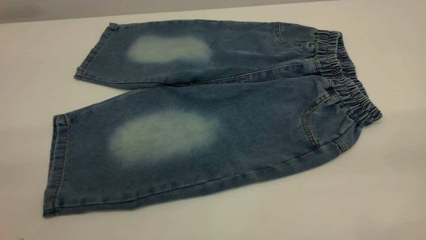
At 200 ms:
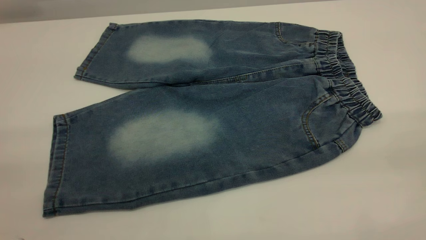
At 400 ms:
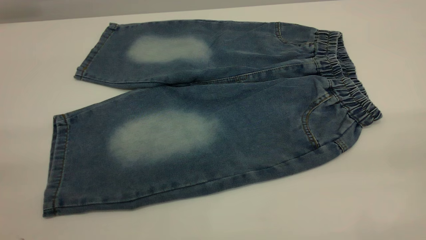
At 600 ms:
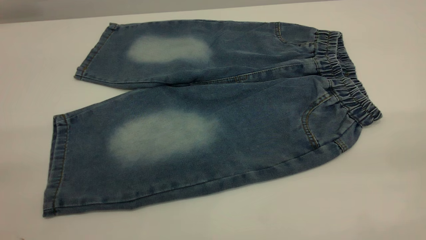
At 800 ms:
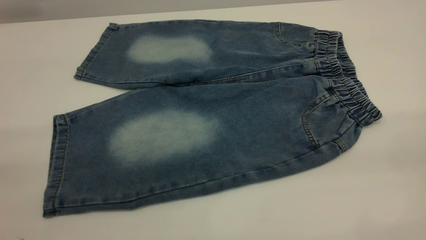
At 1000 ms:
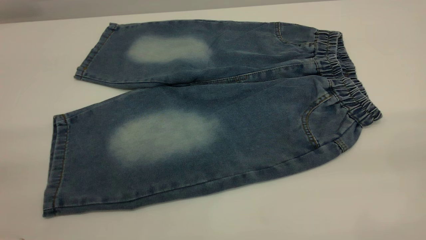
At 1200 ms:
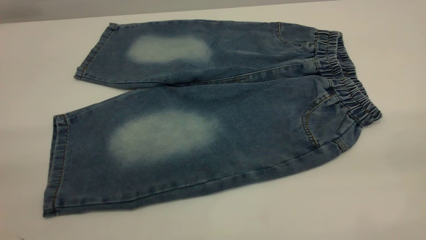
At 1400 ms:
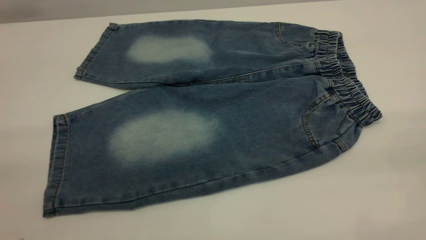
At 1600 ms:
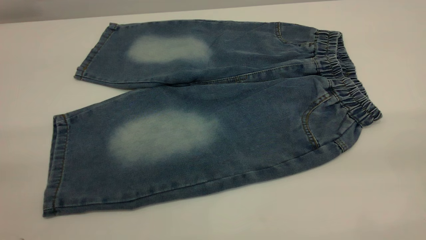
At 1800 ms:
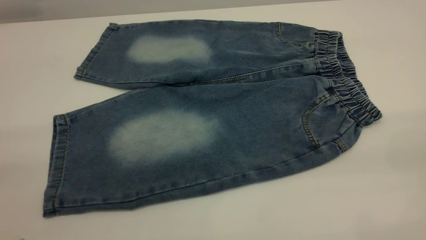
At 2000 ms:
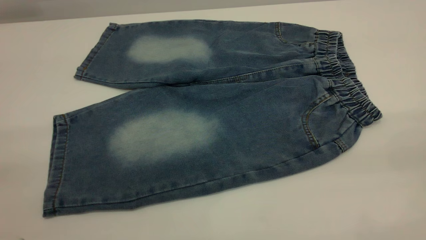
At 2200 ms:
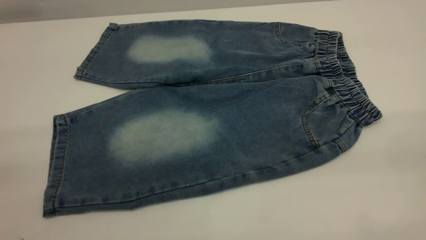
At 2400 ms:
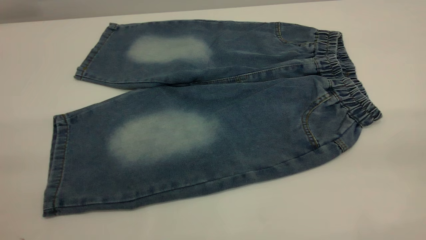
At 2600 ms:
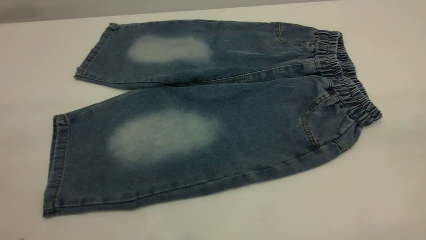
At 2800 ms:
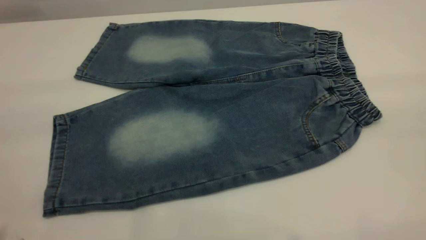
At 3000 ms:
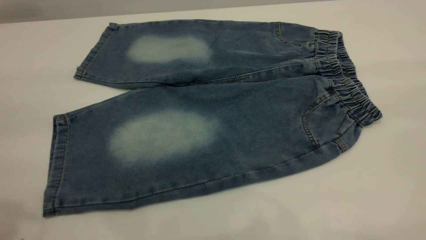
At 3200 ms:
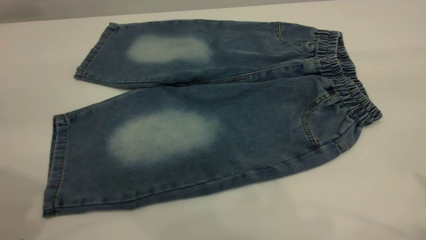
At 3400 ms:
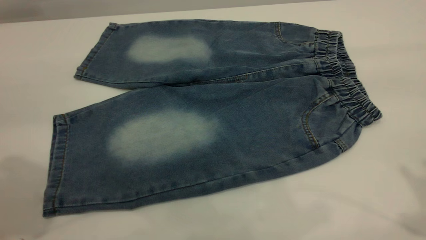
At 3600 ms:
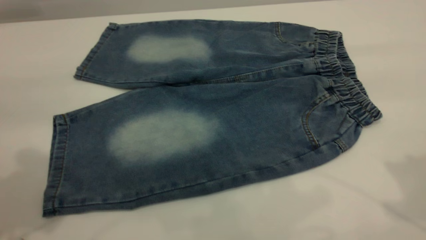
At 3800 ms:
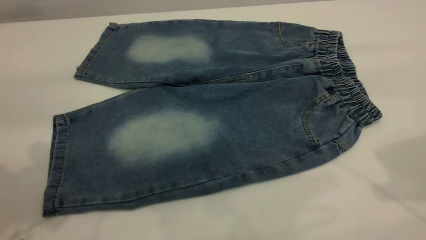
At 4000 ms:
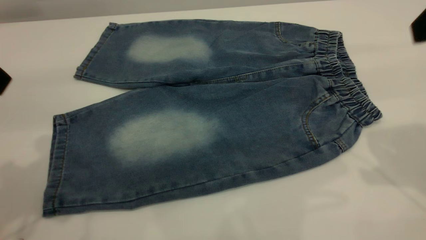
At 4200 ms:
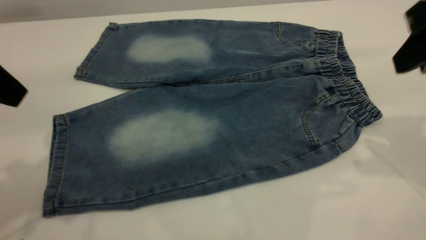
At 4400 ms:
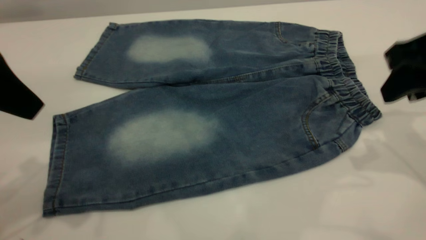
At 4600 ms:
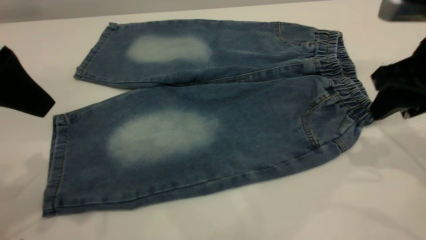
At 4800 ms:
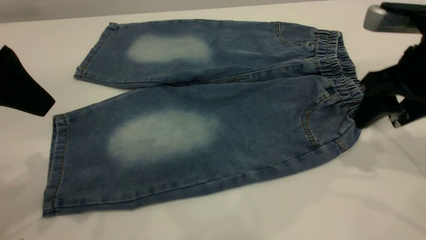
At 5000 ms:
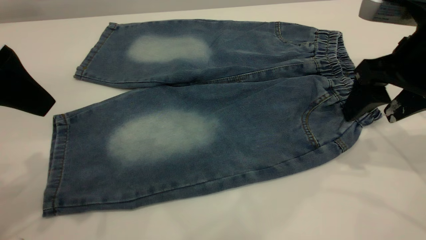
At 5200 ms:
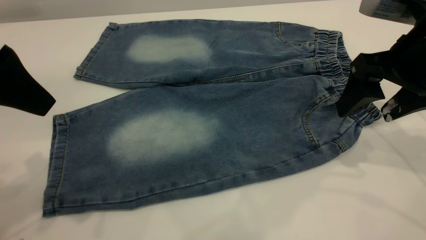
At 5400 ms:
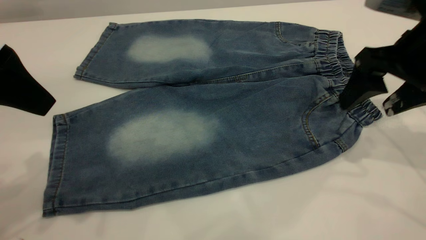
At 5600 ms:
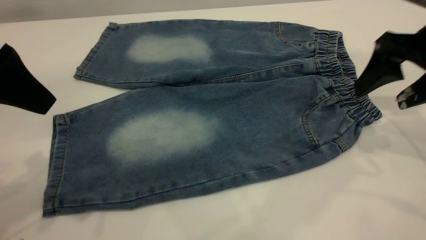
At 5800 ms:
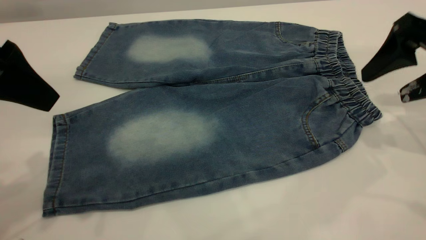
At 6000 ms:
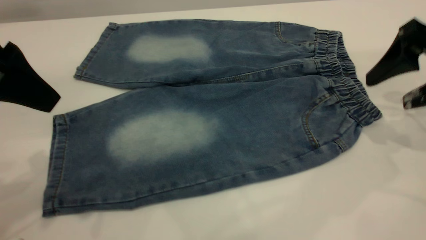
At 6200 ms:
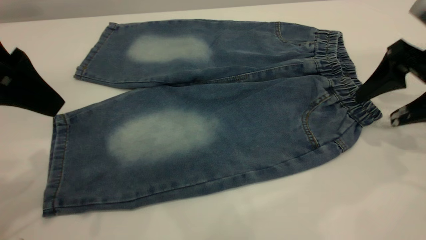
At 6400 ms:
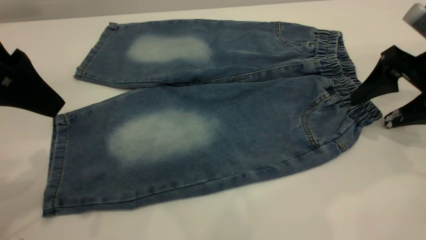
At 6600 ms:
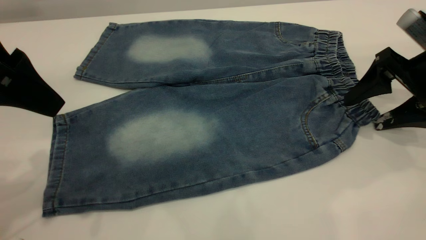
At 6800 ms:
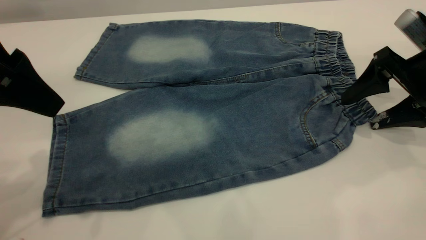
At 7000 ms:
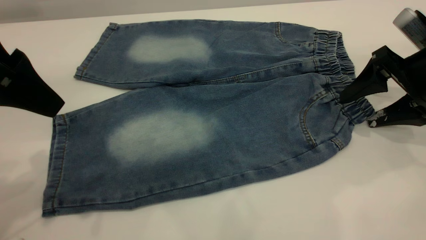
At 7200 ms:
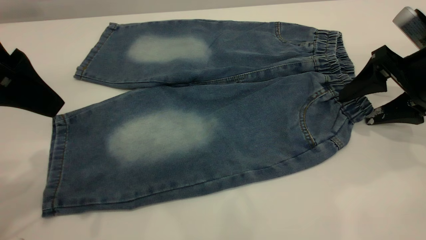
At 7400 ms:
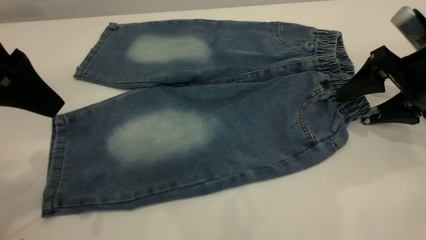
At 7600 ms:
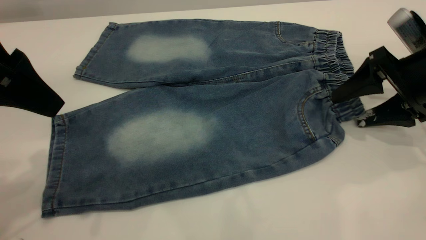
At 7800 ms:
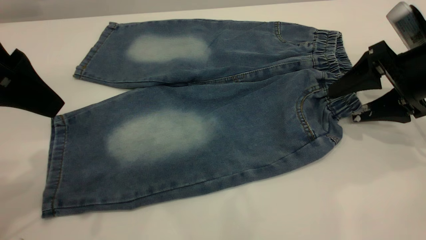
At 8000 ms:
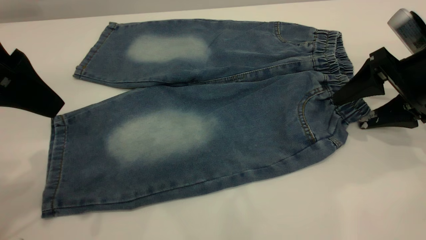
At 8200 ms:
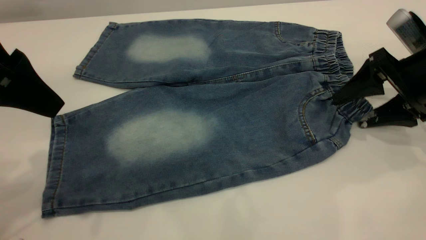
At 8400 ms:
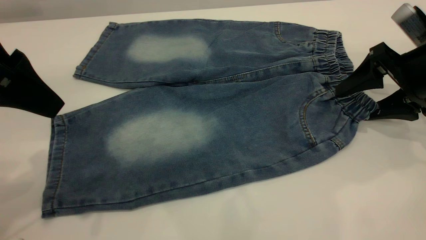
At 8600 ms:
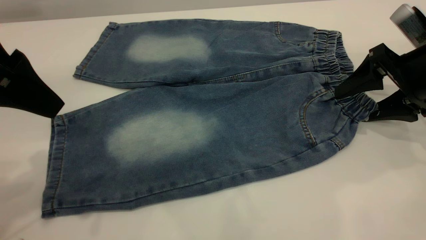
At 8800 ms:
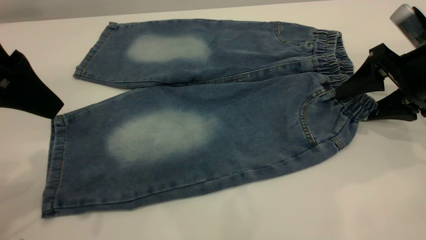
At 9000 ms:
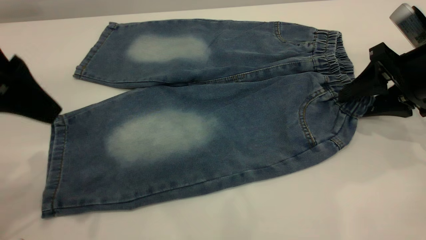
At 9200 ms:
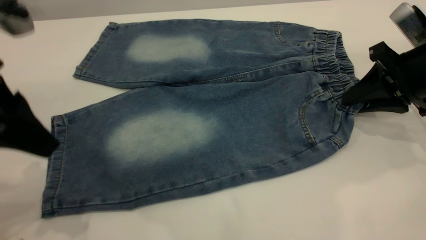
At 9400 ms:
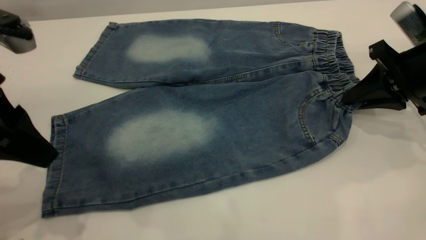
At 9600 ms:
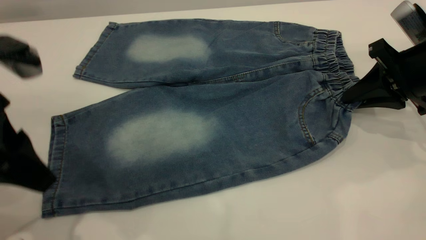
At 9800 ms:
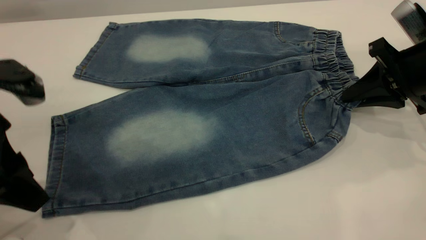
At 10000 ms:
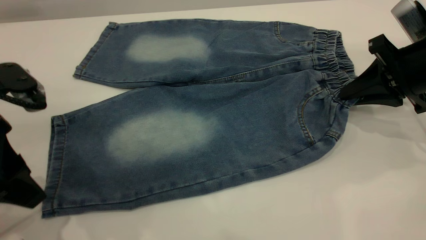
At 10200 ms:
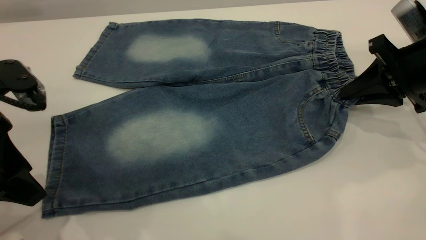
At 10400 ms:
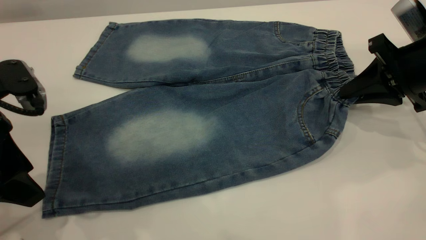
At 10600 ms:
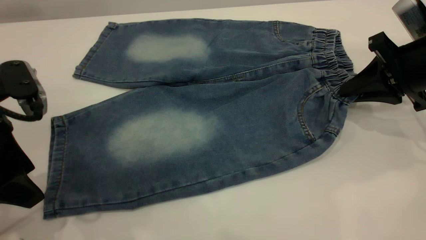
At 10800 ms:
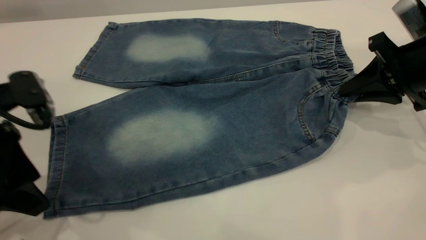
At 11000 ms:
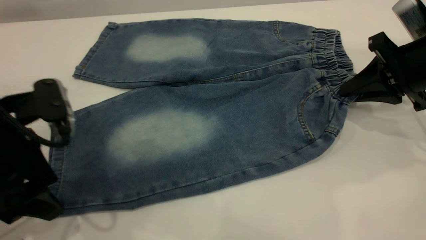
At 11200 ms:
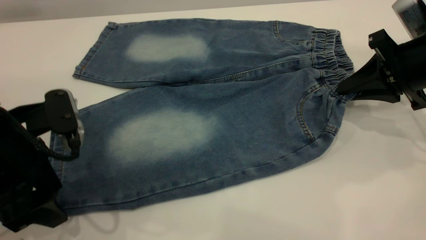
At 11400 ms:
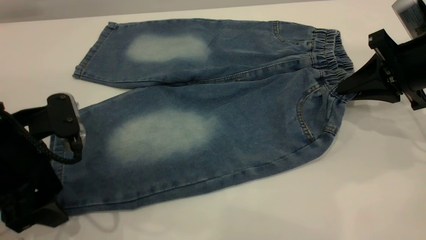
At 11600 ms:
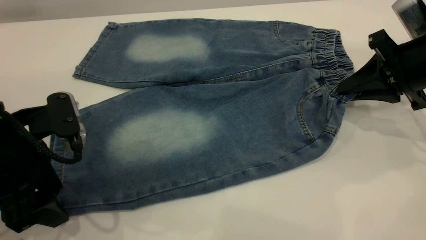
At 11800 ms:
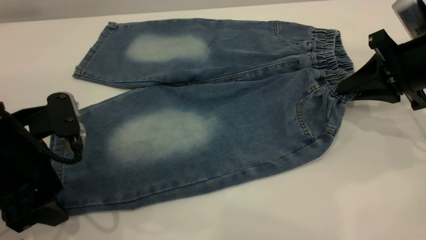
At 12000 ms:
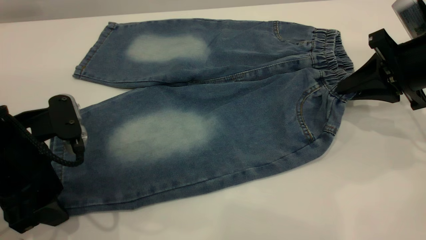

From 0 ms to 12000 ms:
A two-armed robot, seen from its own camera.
From 0 ms to 1600 ms: Both grippers stay put.
From 3000 ms to 4400 ms: The left gripper goes about 15 cm downward and forward. Meanwhile the right gripper shifts roughly 25 cm downward and forward.
From 4400 ms to 6000 ms: The right gripper moves some 5 cm, and opens up.
From 6000 ms to 7600 ms: The right gripper changes place by some 5 cm.
From 7600 ms to 9000 ms: The right gripper closes its fingers.
From 9000 ms to 10400 ms: The right gripper closes up; the left gripper goes about 5 cm downward.
From 10400 ms to 12000 ms: The left gripper ends up approximately 5 cm from where it was.

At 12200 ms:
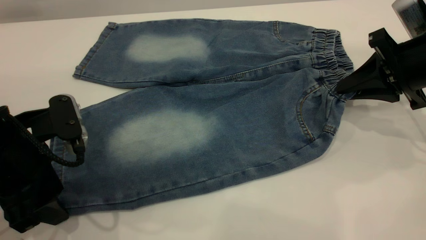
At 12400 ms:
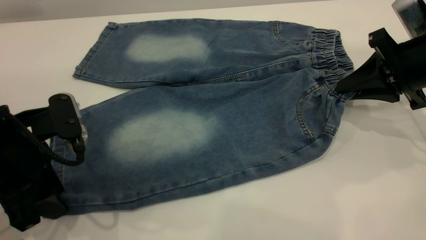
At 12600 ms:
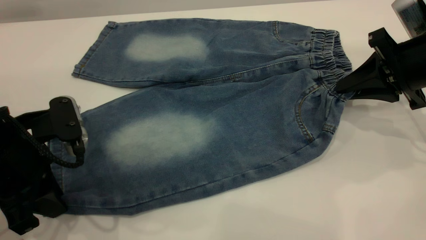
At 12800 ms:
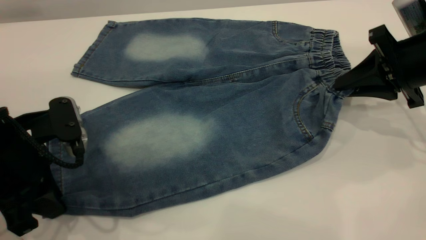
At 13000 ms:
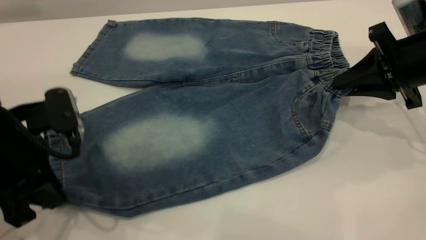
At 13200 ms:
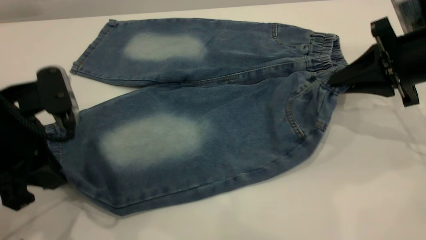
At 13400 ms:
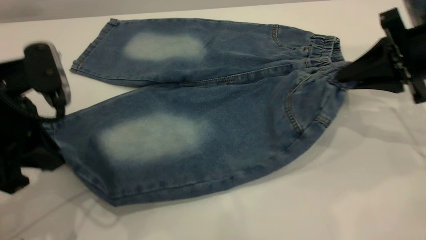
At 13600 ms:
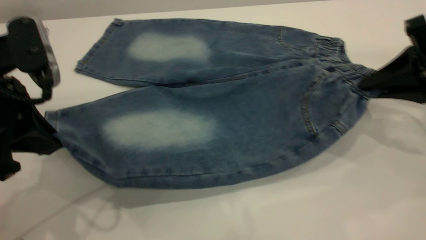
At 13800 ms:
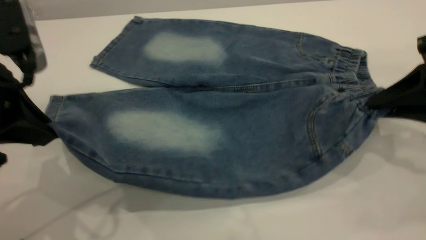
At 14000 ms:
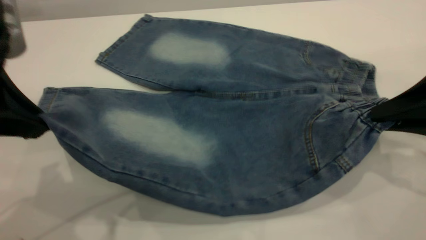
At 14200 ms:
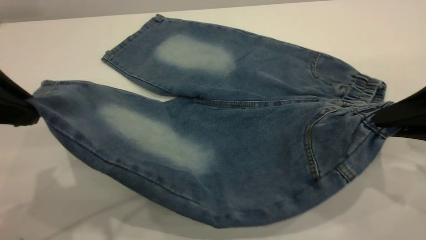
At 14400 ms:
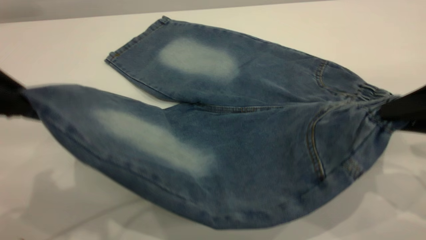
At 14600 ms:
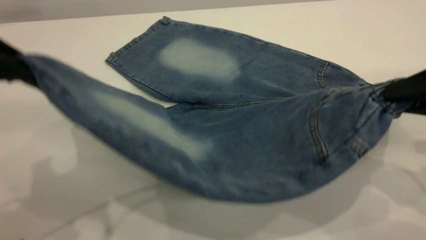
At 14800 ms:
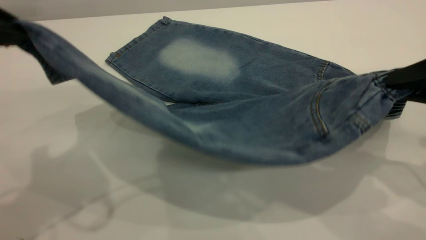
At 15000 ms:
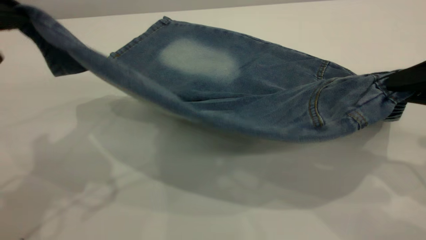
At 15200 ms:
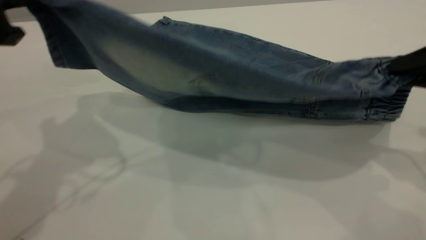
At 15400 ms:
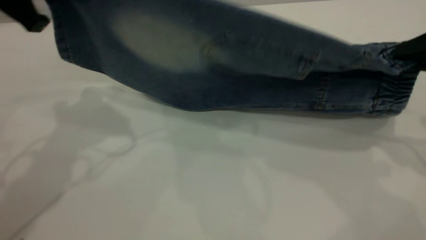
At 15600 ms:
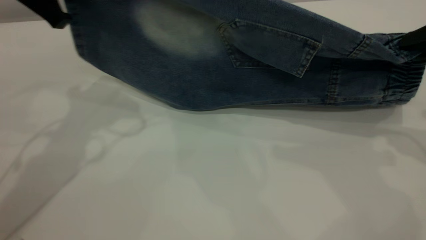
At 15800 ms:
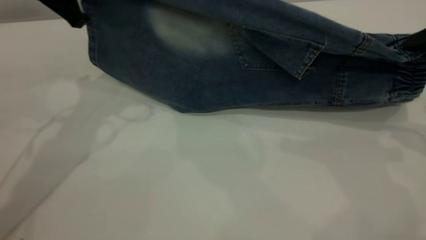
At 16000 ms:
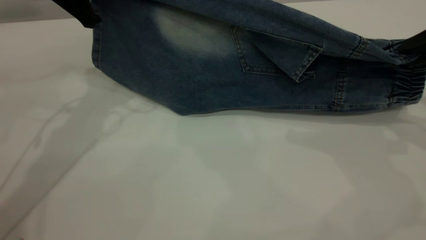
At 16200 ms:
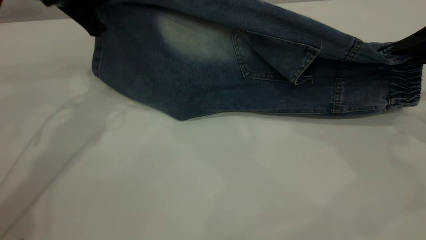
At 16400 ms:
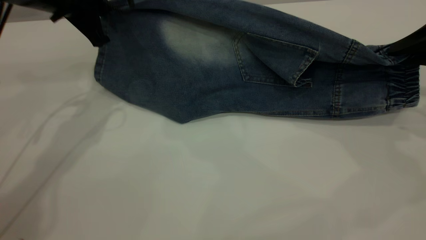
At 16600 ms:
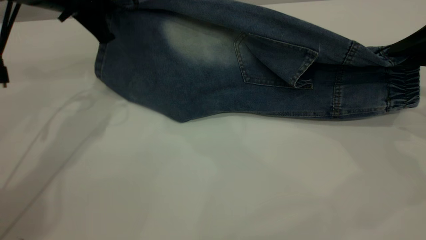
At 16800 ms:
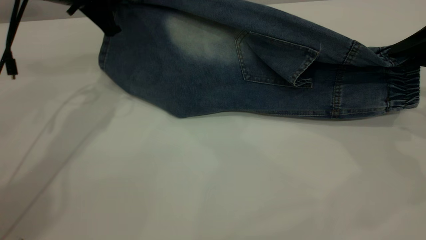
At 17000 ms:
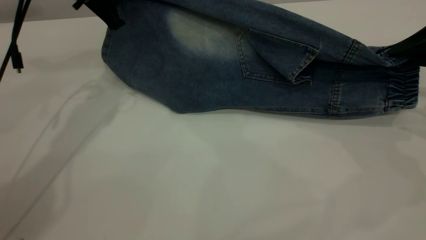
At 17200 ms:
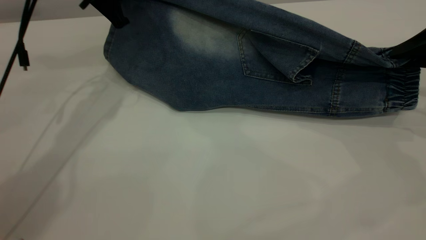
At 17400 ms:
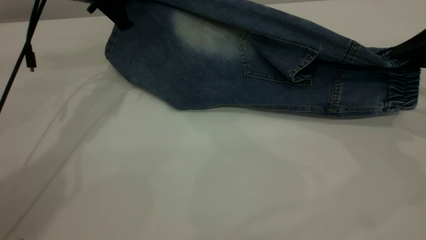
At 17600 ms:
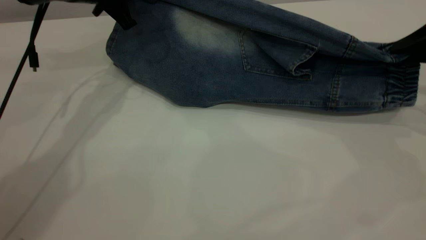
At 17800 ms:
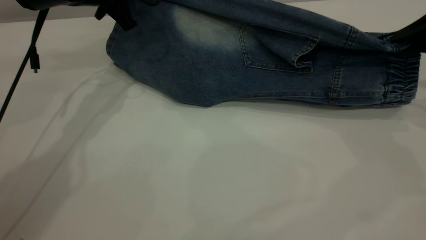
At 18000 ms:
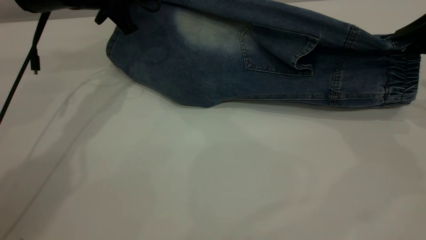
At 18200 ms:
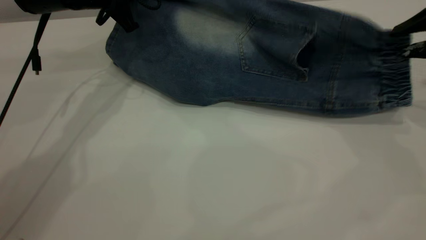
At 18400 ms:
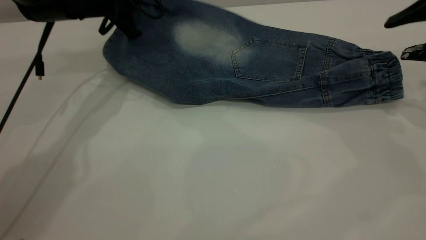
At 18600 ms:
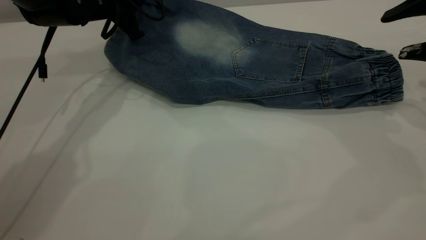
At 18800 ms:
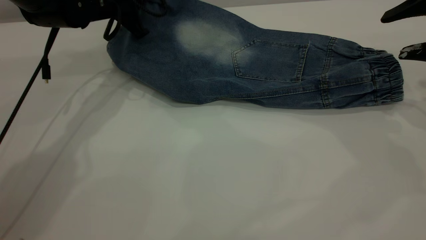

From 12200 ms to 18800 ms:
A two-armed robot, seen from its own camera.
From 12200 ms to 13800 ms: The left gripper moves upward, some 10 cm, and closes, while the right gripper heads backward, covering approximately 10 cm.
From 13800 ms to 15400 ms: The left gripper heads forward, covering some 10 cm. The right gripper travels upward by about 5 cm.
From 15400 ms to 17200 ms: The left gripper is displaced forward and downward by some 15 cm; the right gripper heads forward, covering about 5 cm.
From 17200 ms to 18800 ms: The right gripper opens its fingers.
